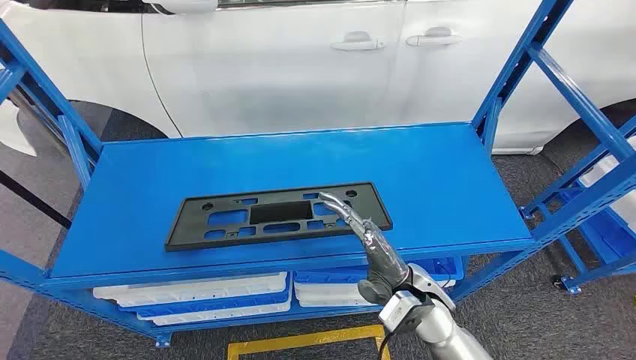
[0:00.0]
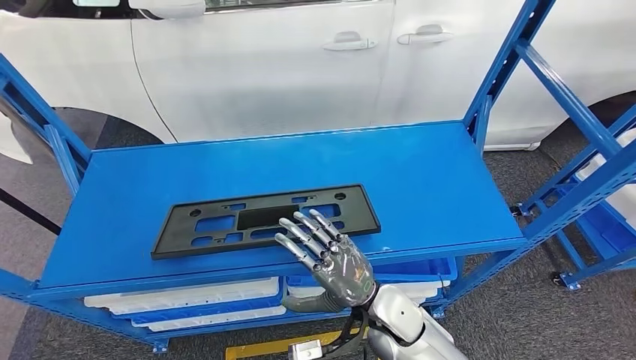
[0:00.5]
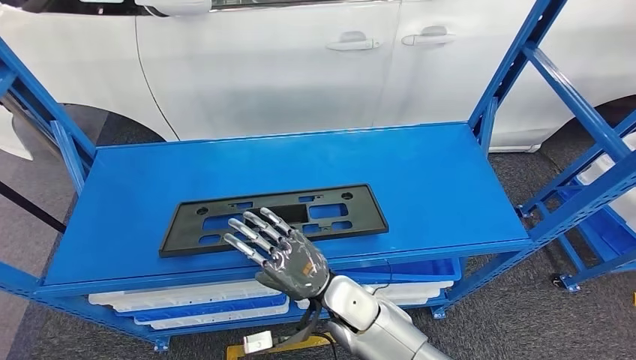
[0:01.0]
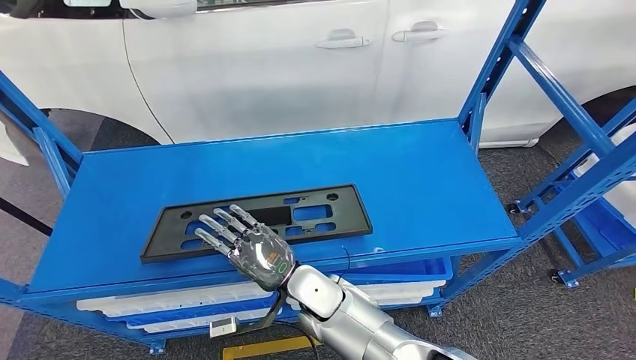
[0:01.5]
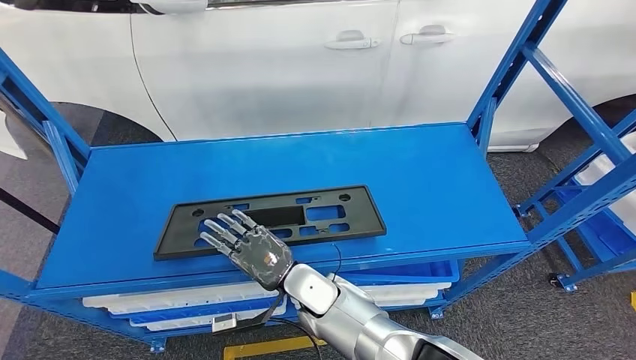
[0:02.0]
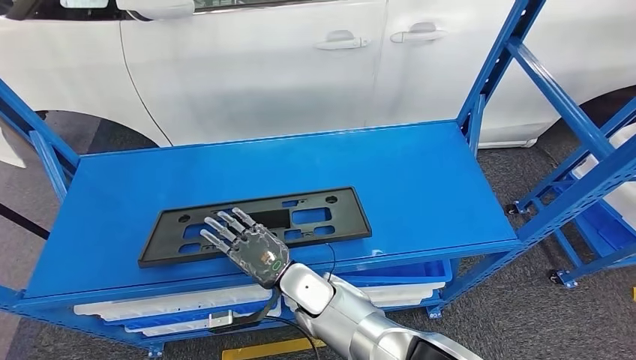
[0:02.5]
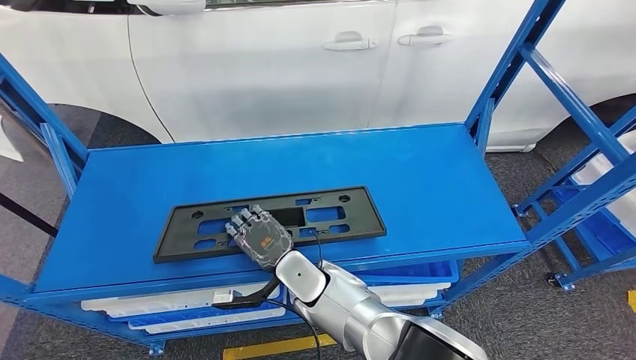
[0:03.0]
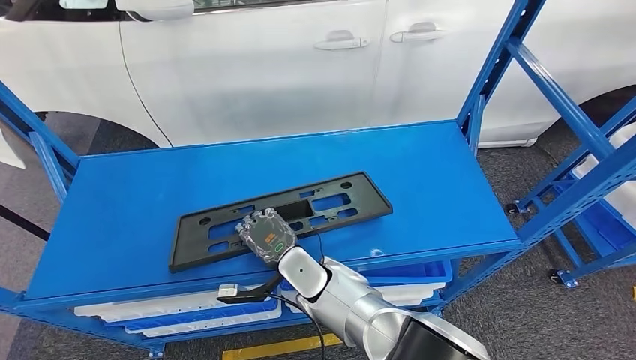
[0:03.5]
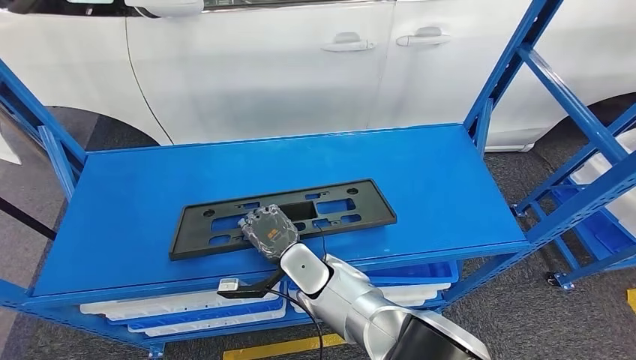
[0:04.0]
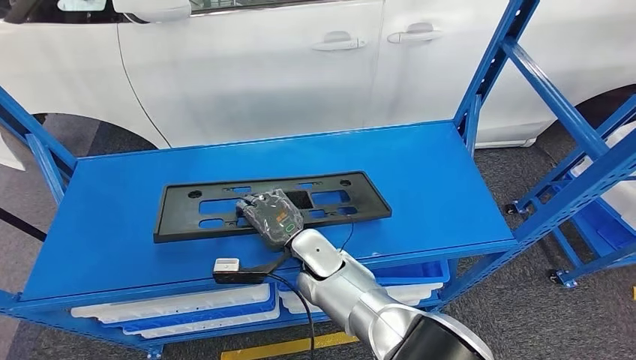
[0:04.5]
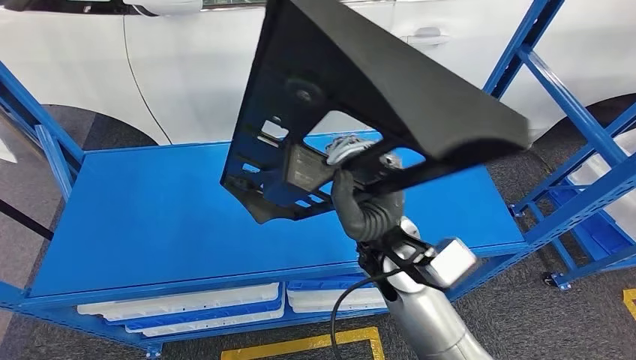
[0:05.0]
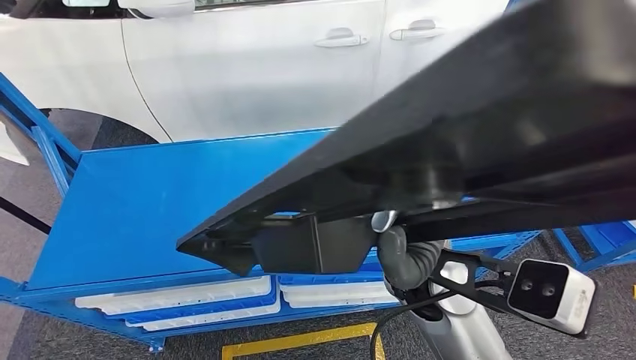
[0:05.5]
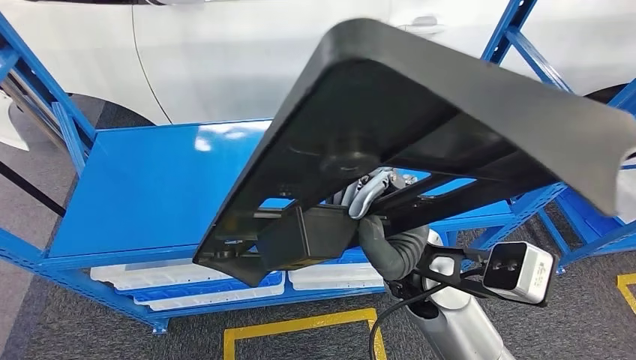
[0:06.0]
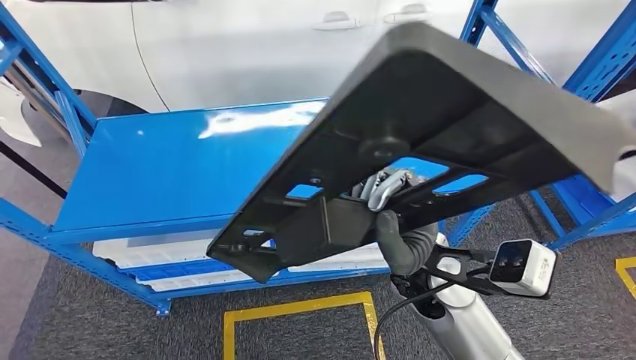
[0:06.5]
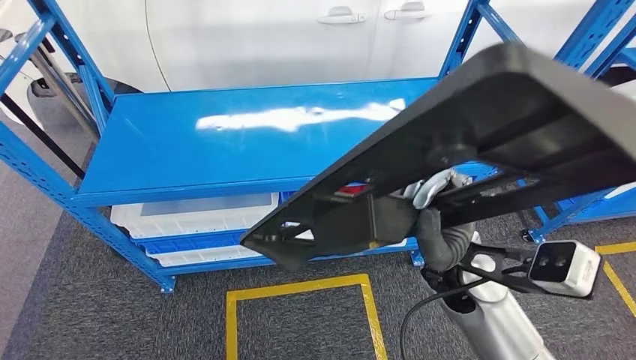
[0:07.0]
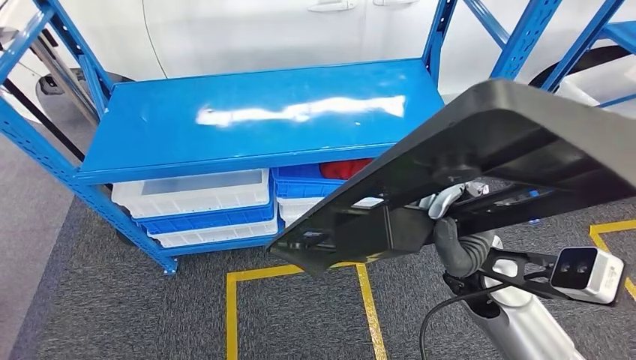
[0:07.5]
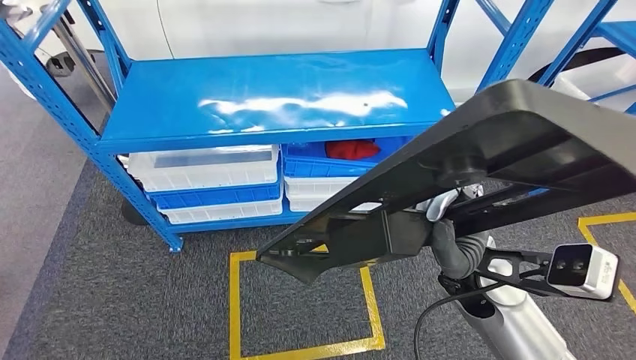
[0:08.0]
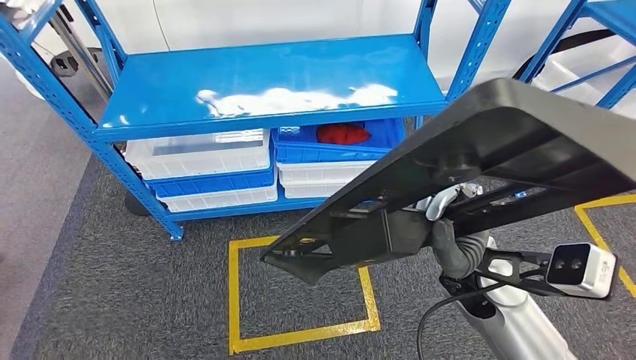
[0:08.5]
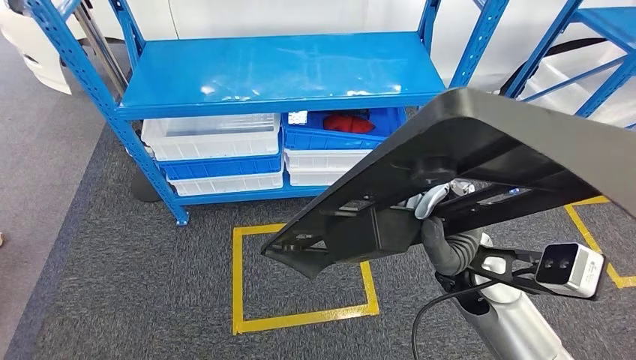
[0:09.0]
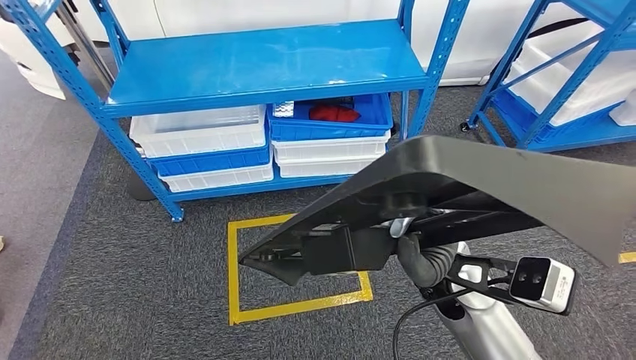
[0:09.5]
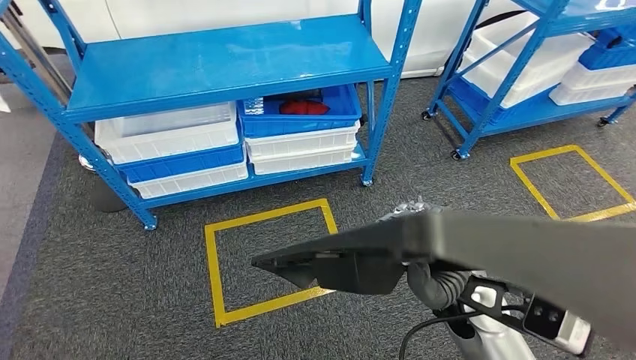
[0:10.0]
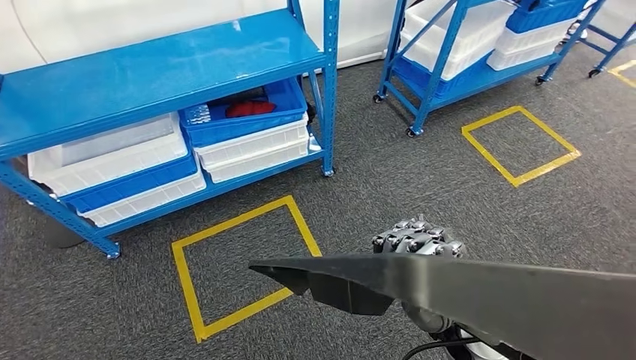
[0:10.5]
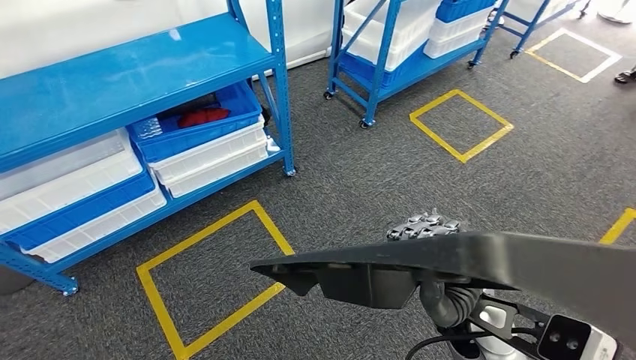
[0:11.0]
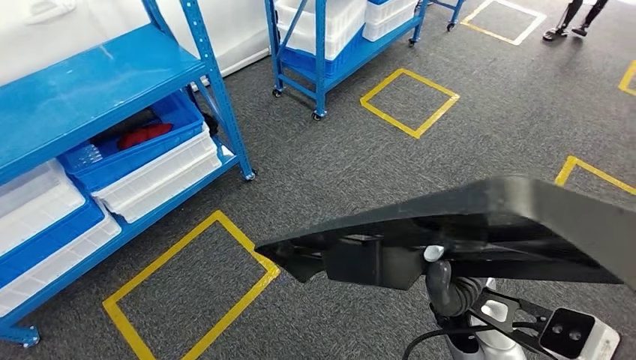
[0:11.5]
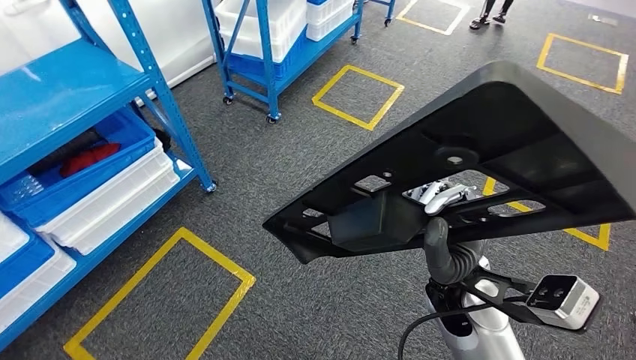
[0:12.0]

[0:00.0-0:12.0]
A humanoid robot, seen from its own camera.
Step, 0:00.0 to 0:08.0: Pick up the large material from the shelf.

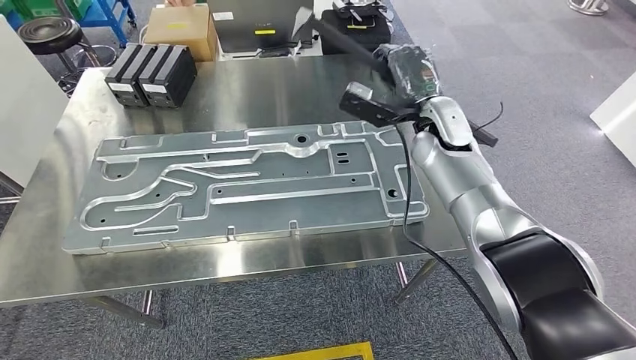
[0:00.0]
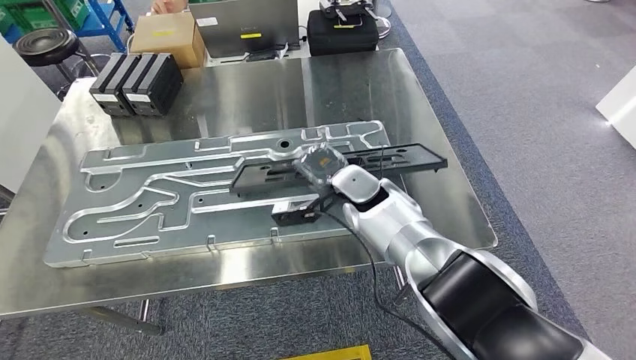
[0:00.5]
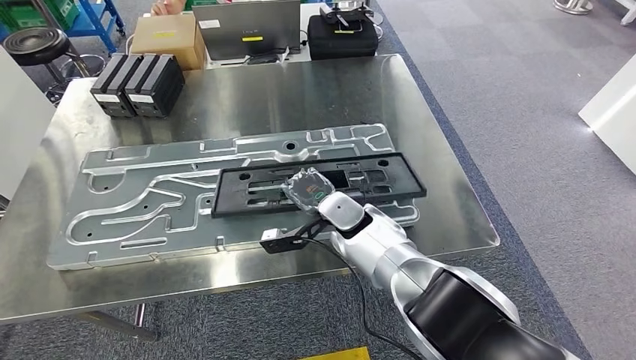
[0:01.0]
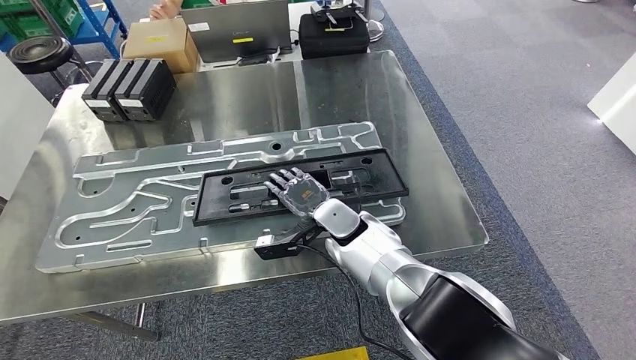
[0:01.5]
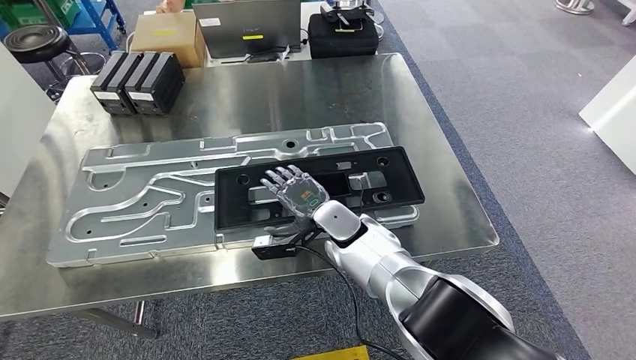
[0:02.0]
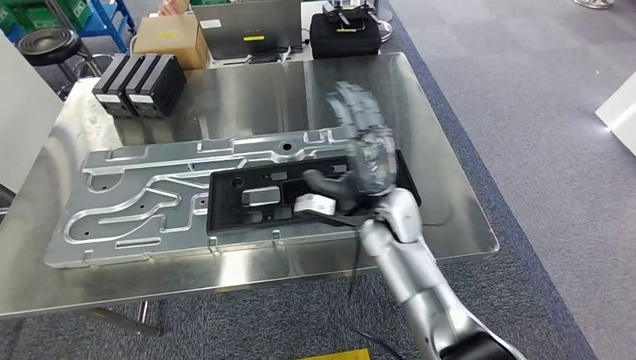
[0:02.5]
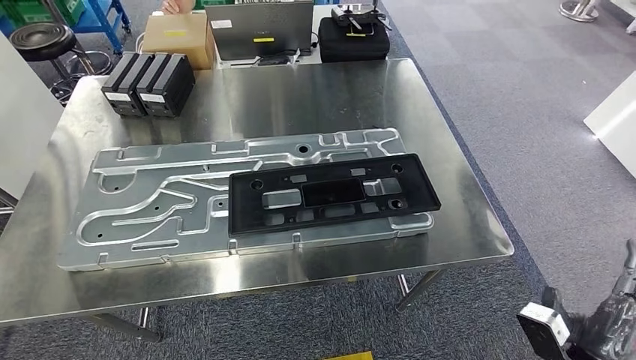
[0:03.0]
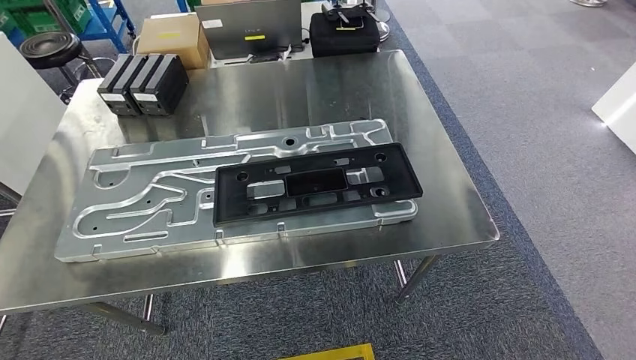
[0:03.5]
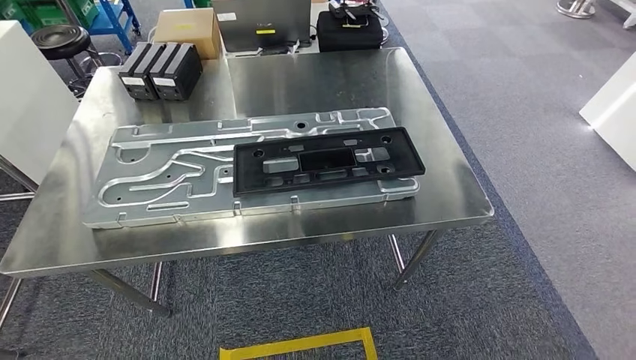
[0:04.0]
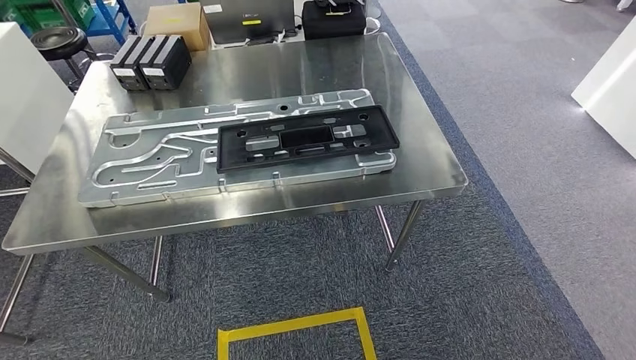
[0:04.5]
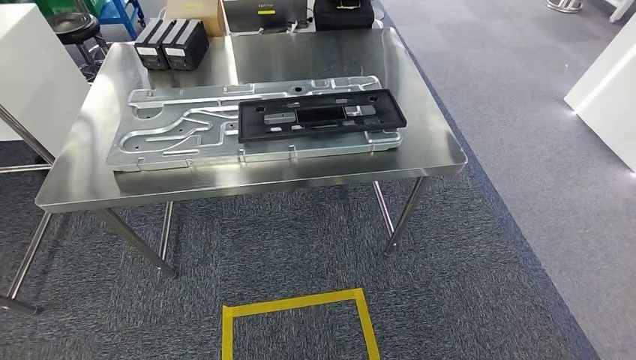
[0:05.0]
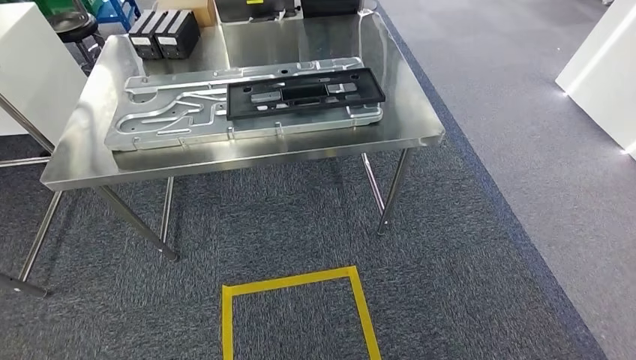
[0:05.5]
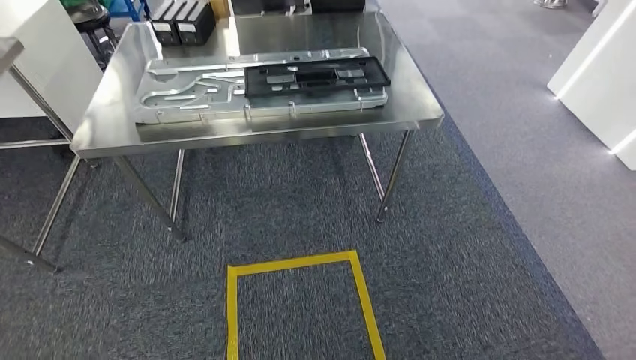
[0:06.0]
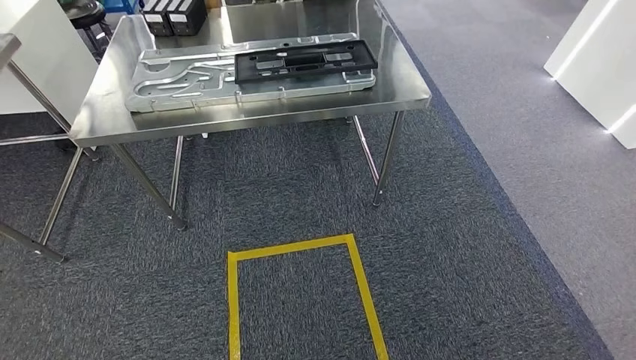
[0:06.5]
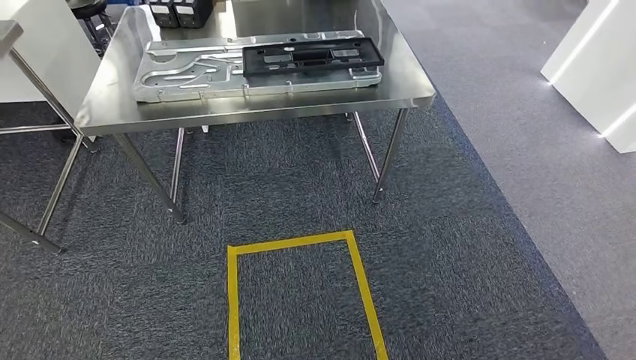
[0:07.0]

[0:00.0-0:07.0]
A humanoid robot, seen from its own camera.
Step, 0:00.5 to 0:02.0: Insert the large material into the corresponding slot on the workbench.
Step, 0:02.5 to 0:07.0: Move to the initial position of the shelf.
